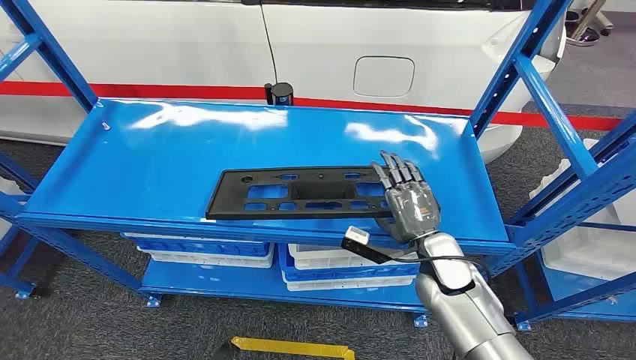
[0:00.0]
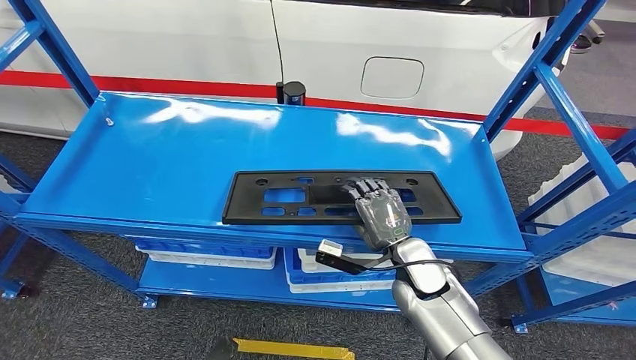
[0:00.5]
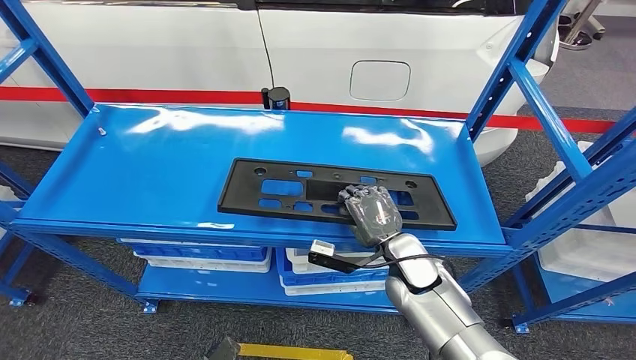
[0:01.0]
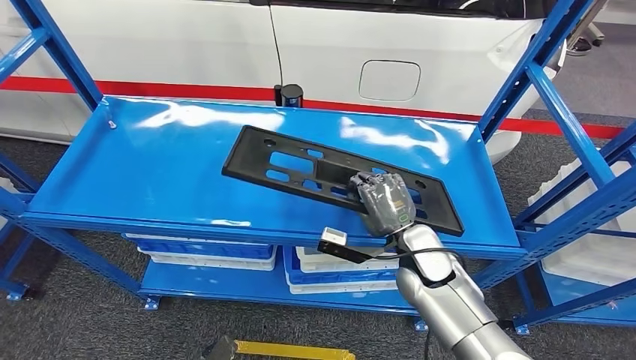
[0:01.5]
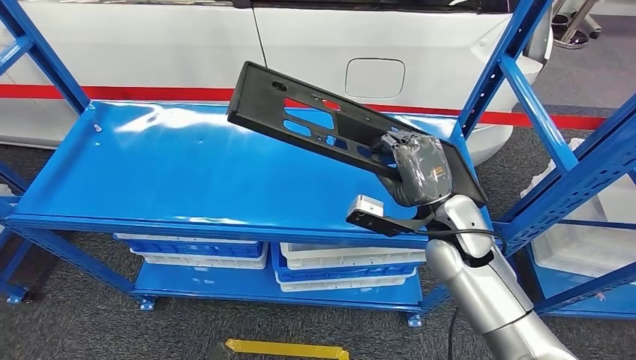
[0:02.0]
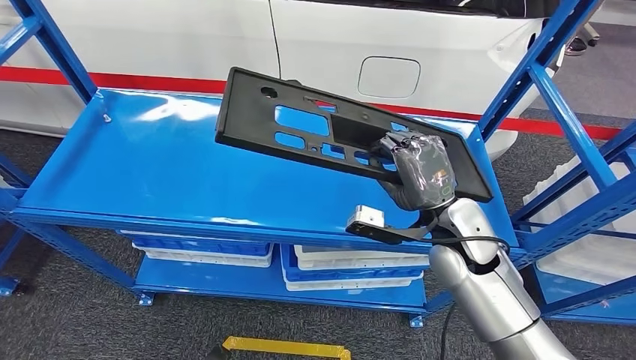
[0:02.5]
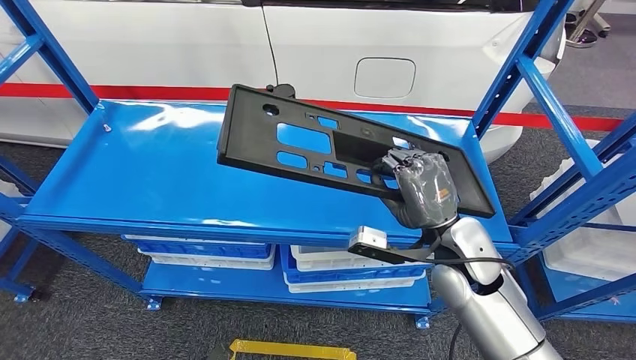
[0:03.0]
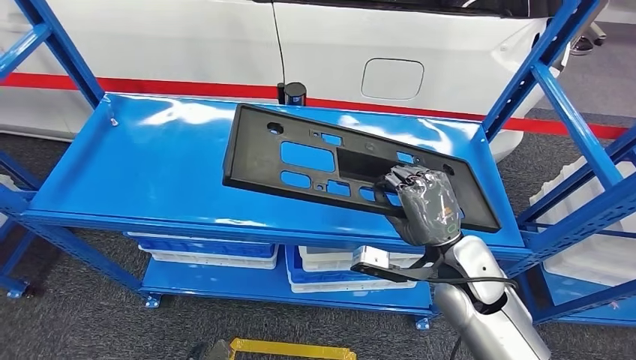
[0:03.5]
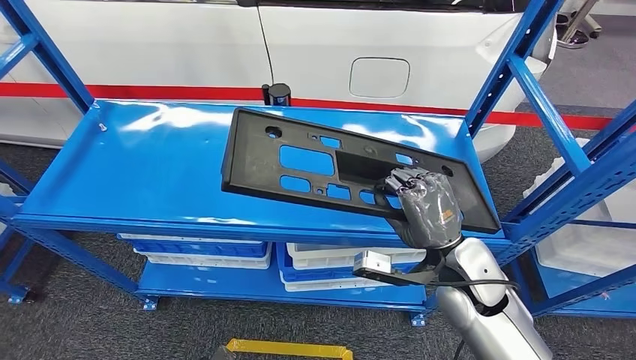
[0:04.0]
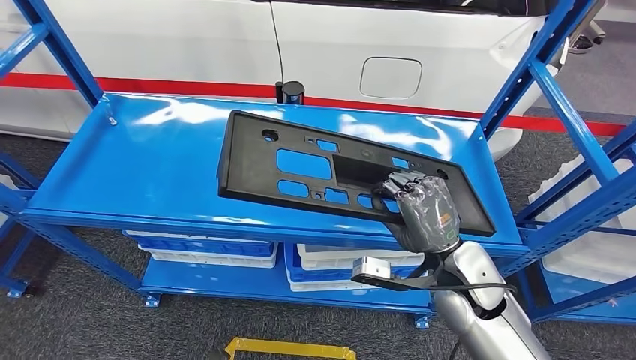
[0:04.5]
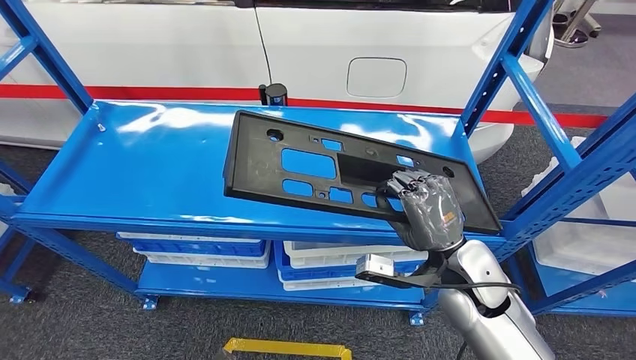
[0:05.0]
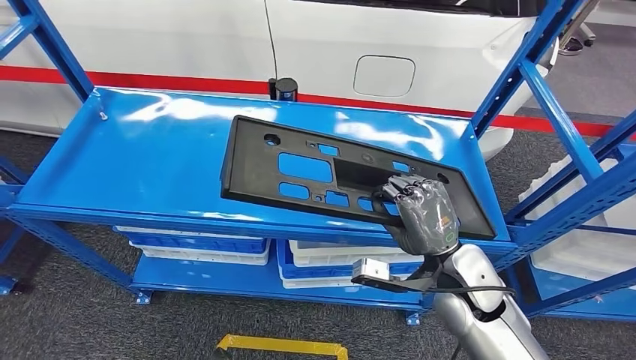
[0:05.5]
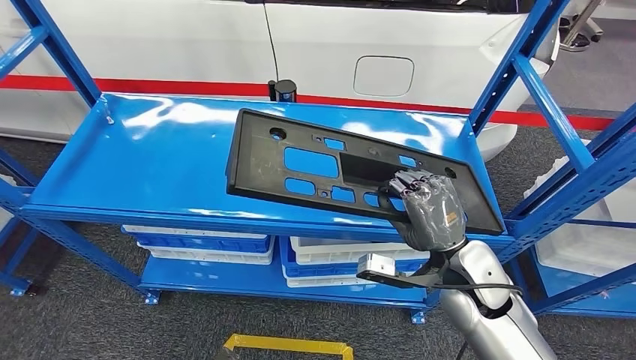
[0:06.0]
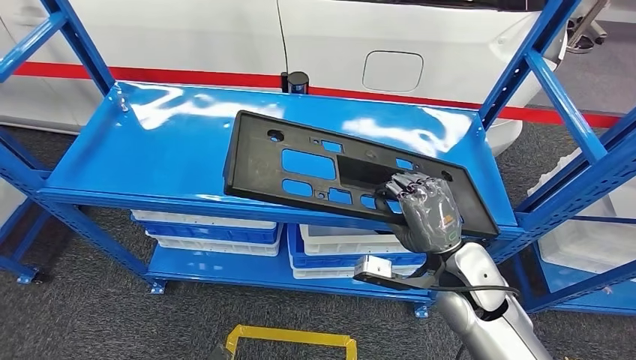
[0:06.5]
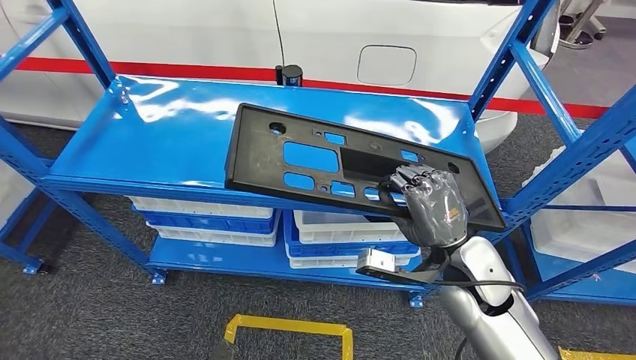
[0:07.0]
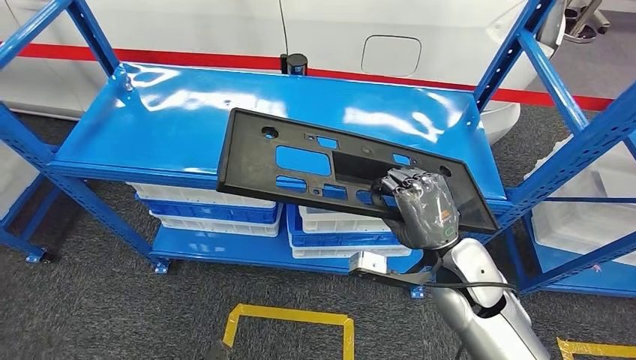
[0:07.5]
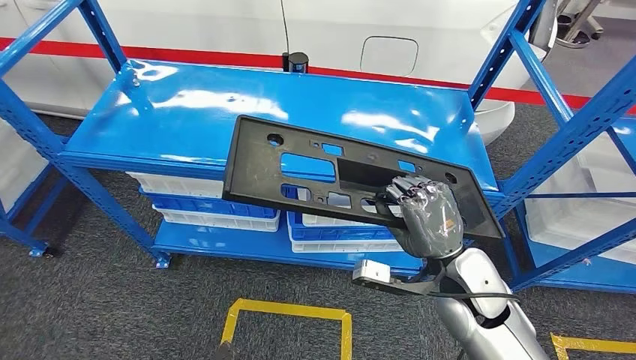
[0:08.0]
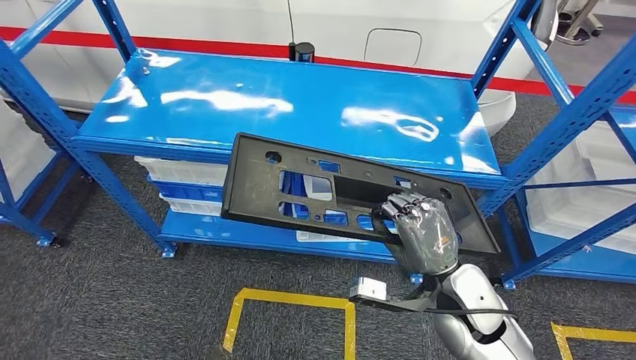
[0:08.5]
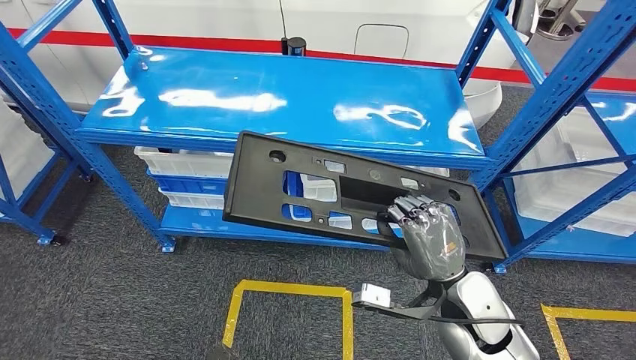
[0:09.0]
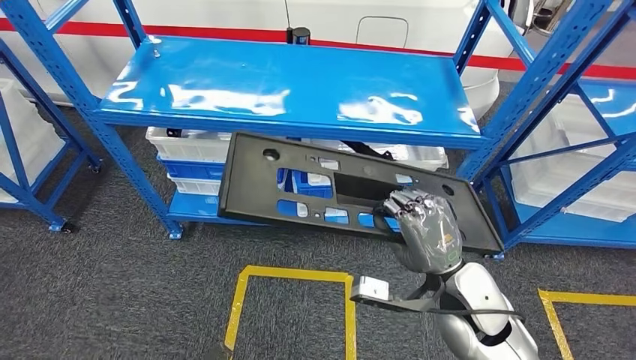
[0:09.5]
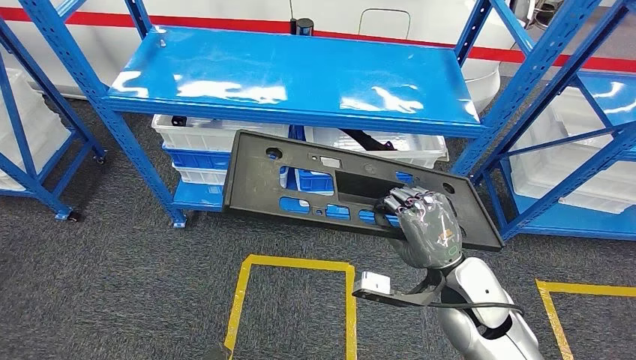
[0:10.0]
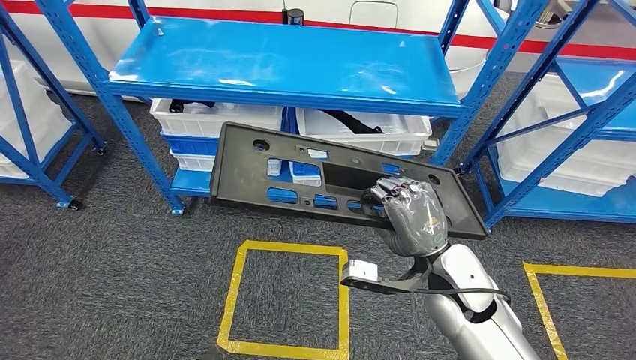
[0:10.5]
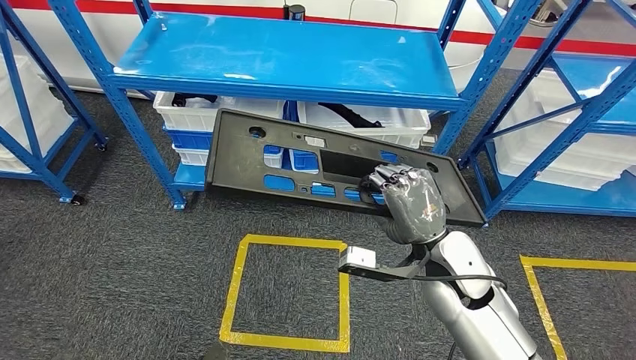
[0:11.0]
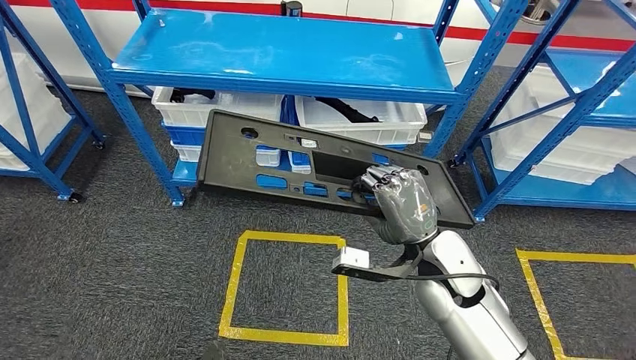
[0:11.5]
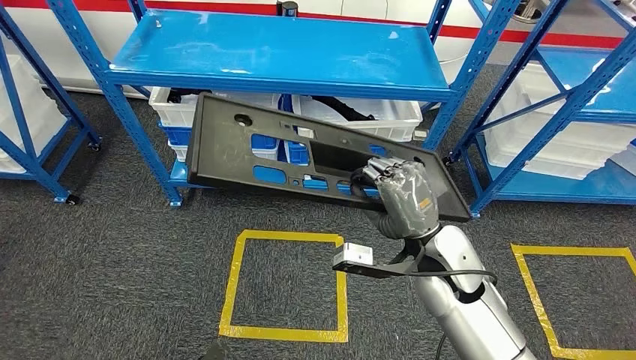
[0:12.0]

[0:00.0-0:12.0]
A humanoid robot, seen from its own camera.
Step, 0:00.0 to 0:07.5: Pick up the large material from the shelf.

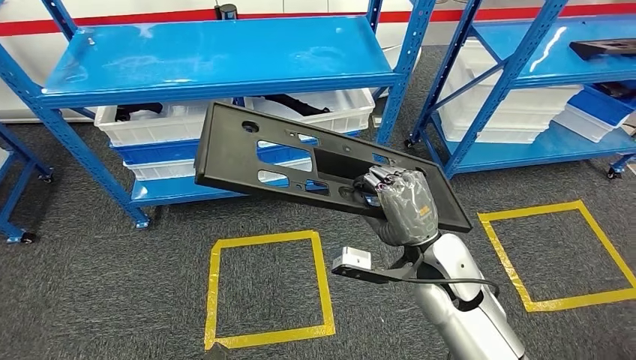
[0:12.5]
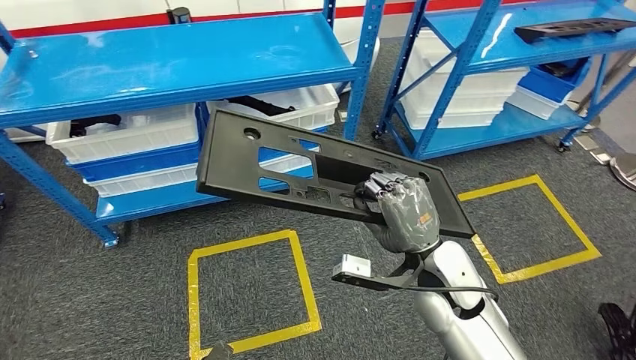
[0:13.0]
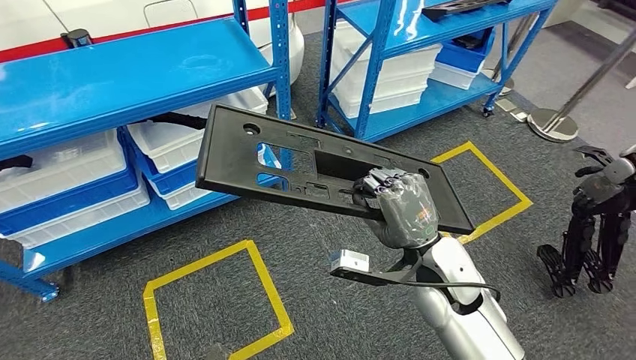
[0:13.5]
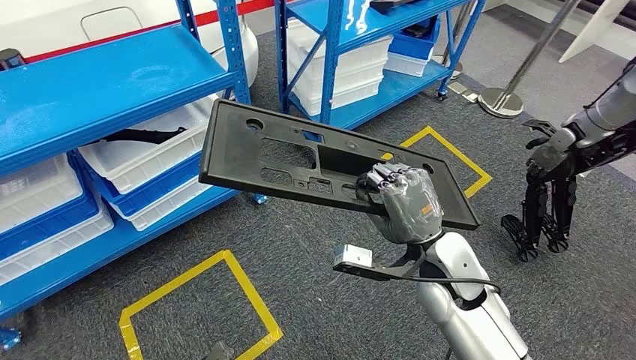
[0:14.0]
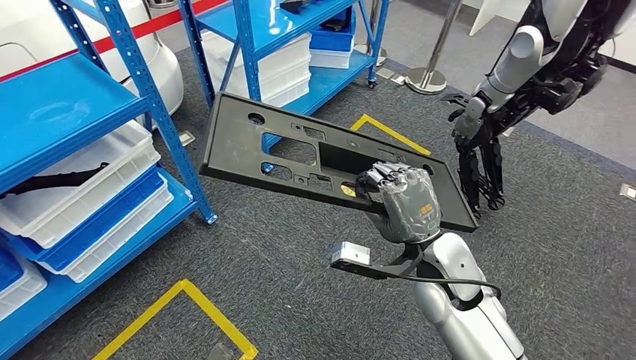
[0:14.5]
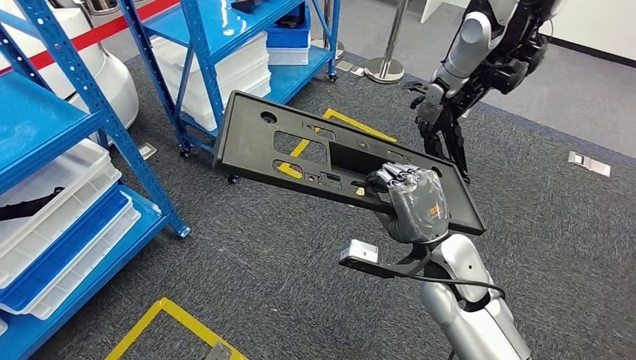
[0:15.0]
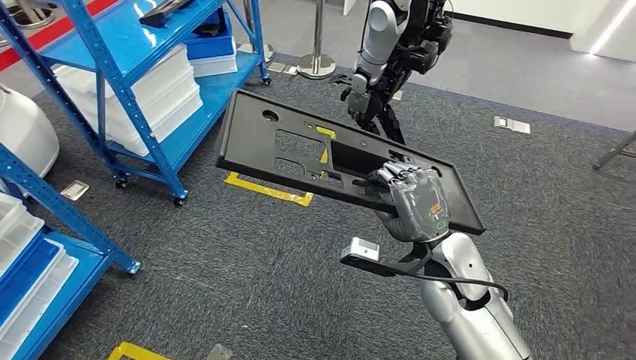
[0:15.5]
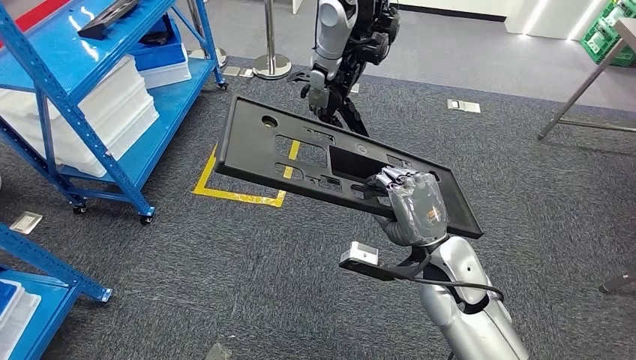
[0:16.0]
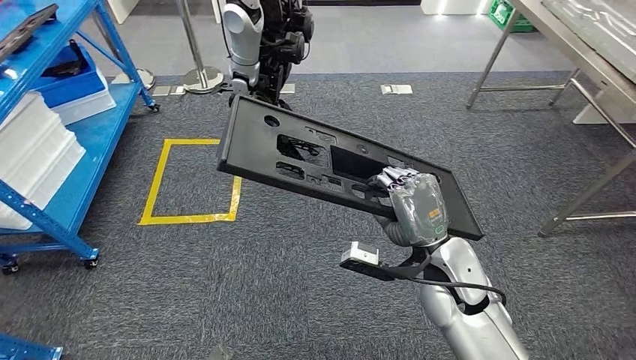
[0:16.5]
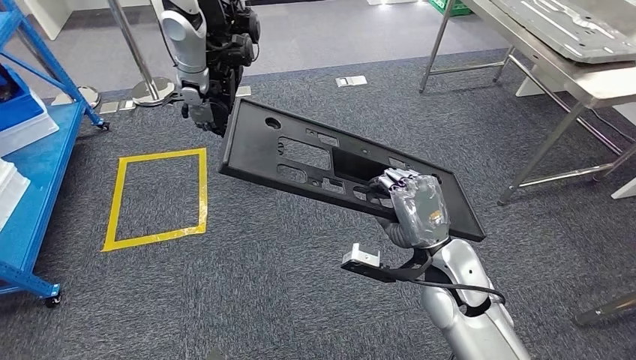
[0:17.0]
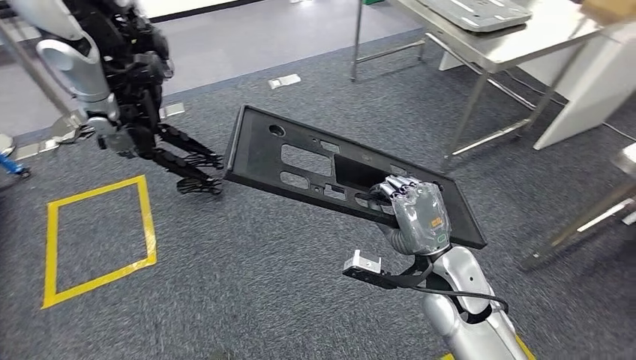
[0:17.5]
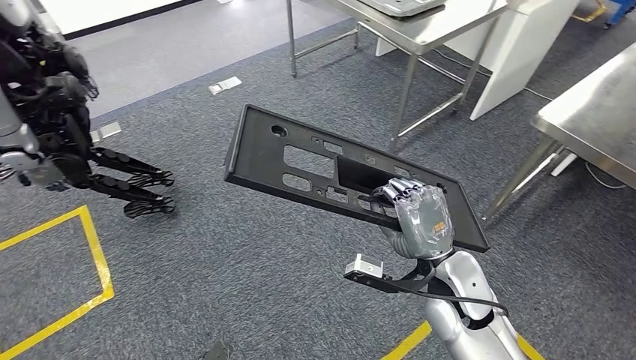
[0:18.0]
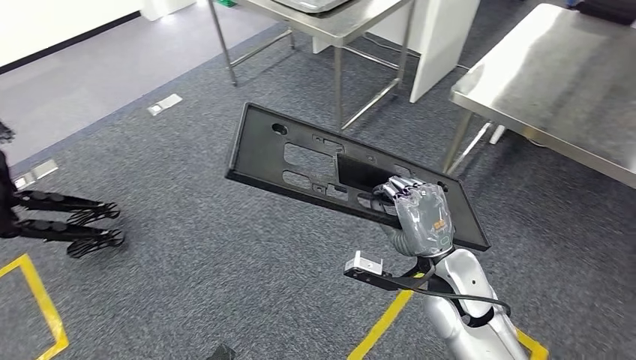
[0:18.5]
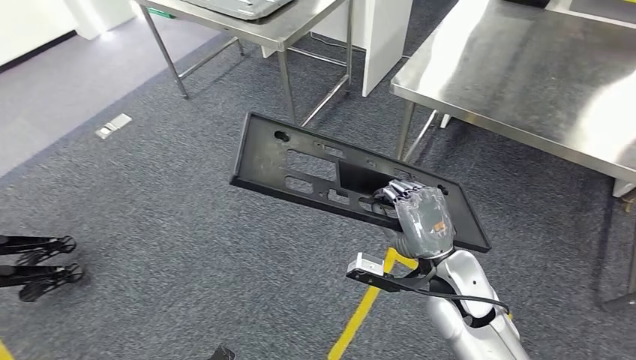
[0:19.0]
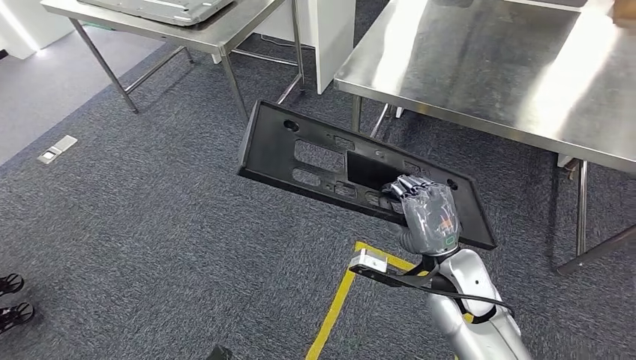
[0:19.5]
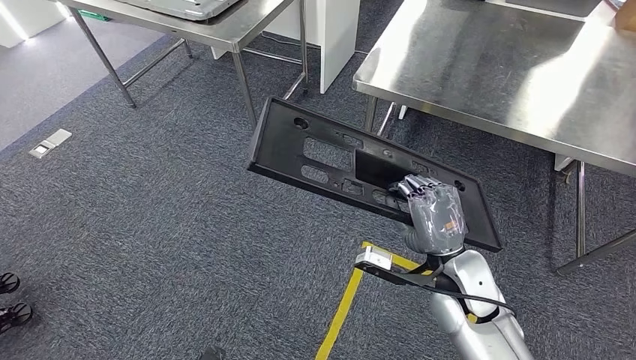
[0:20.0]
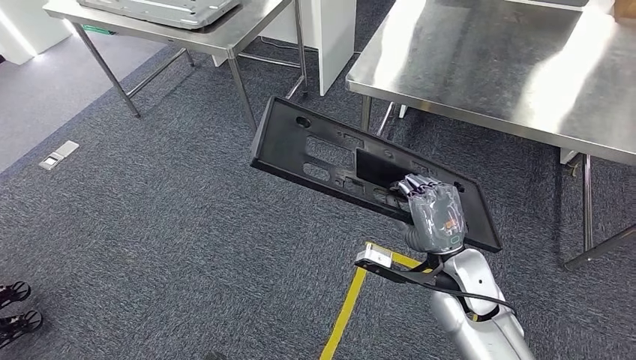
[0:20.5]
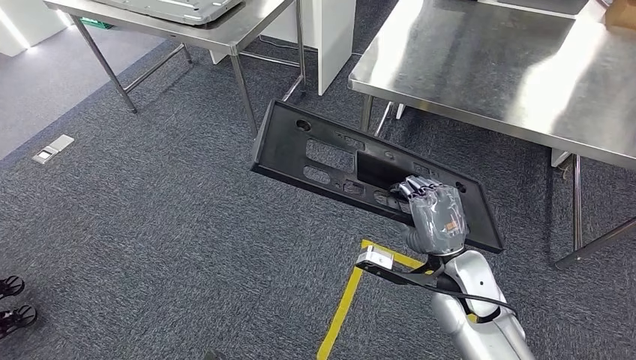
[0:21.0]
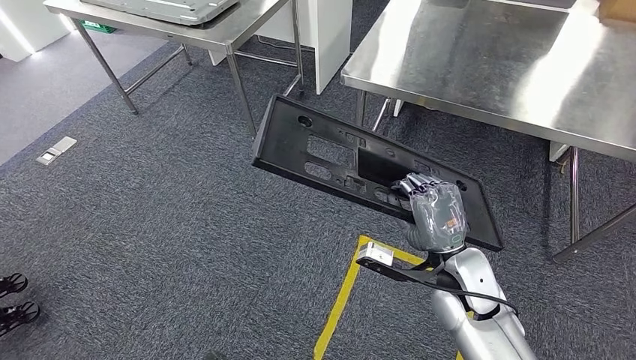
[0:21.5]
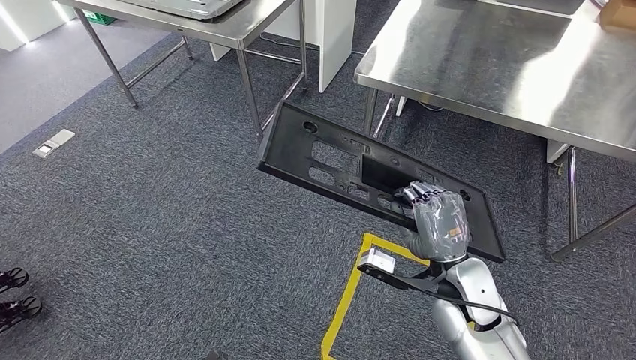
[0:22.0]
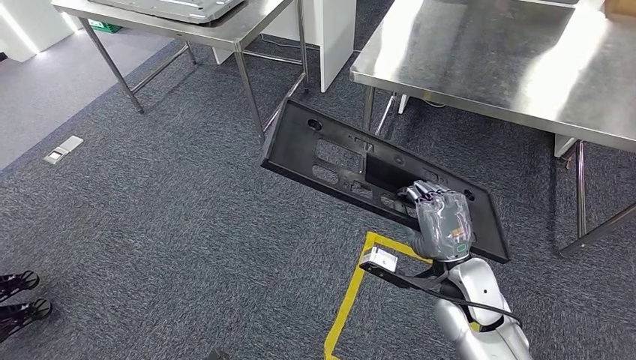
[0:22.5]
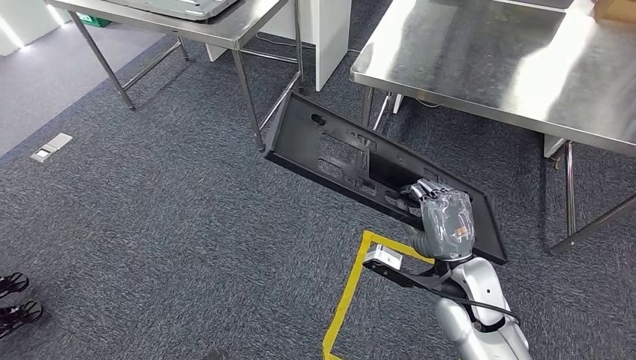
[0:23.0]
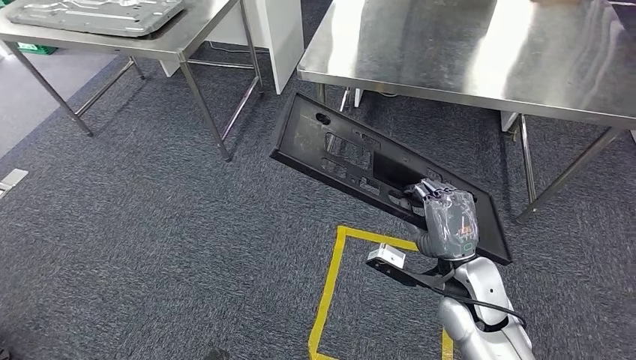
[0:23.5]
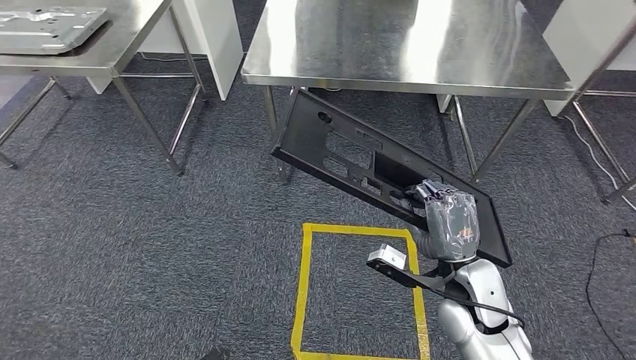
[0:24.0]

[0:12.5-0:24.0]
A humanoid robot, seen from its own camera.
0:20.0 to 0:22.0: The two hands keep their place.
